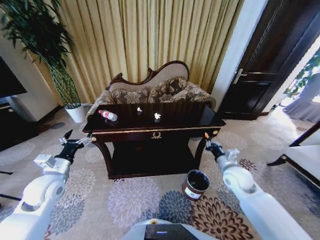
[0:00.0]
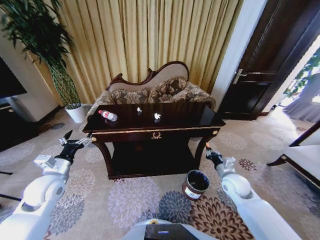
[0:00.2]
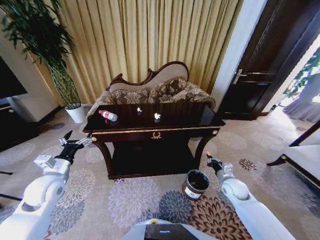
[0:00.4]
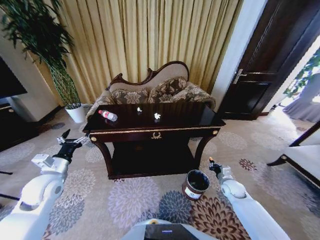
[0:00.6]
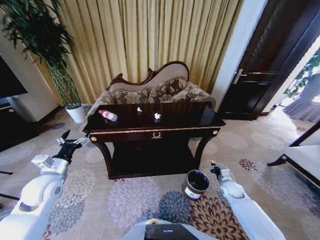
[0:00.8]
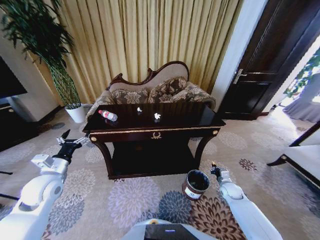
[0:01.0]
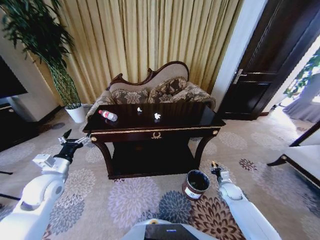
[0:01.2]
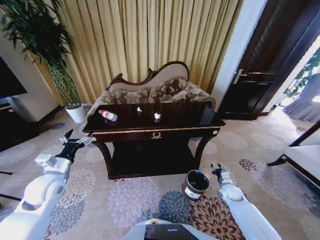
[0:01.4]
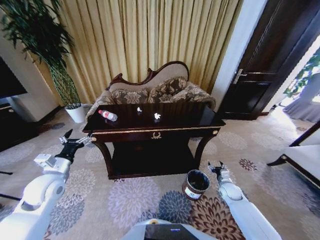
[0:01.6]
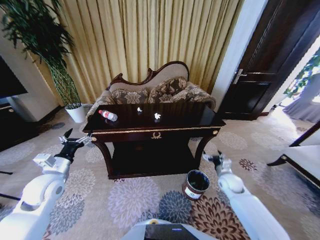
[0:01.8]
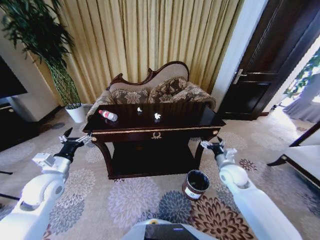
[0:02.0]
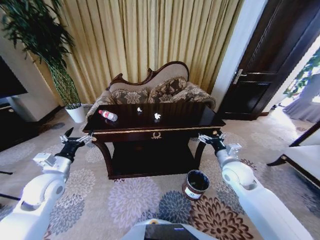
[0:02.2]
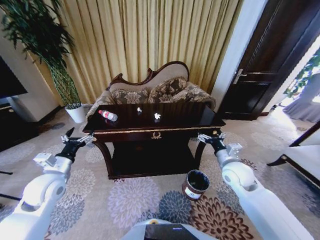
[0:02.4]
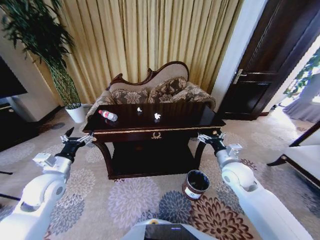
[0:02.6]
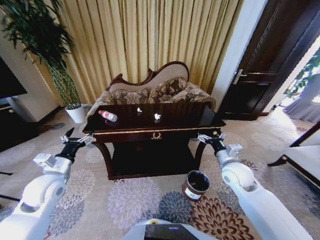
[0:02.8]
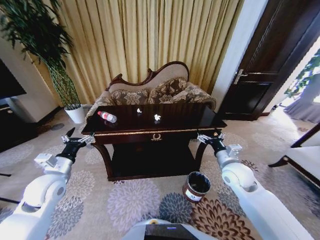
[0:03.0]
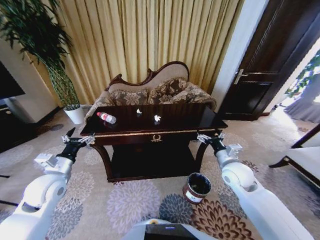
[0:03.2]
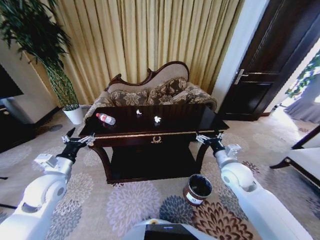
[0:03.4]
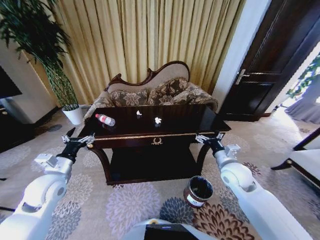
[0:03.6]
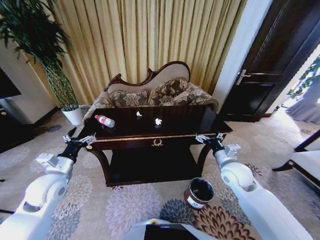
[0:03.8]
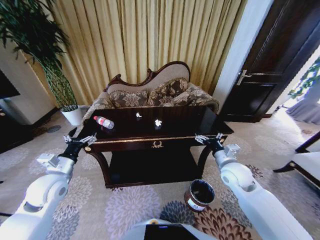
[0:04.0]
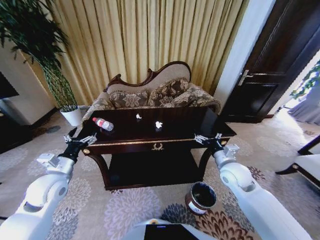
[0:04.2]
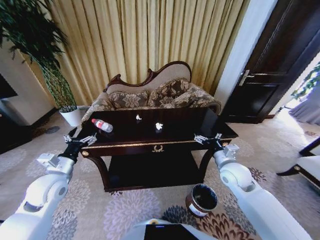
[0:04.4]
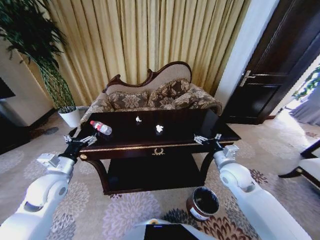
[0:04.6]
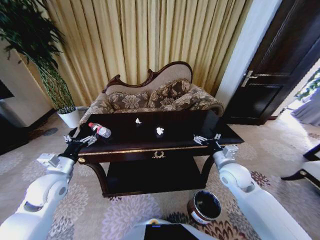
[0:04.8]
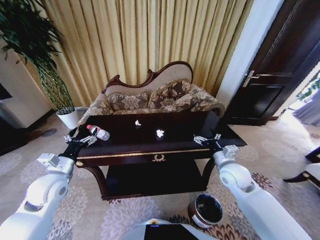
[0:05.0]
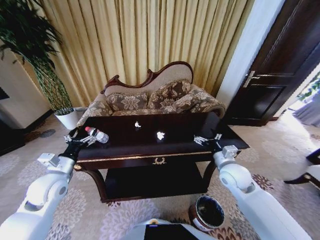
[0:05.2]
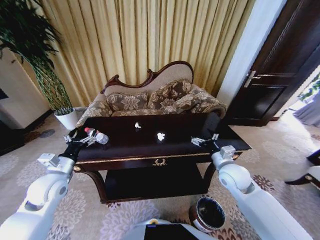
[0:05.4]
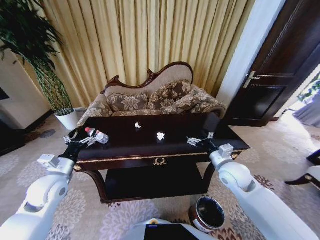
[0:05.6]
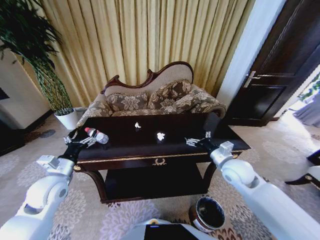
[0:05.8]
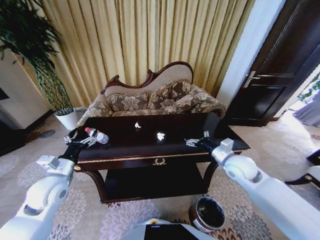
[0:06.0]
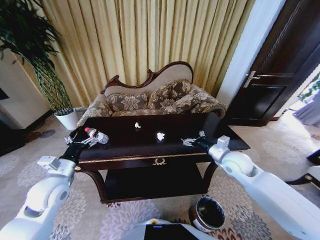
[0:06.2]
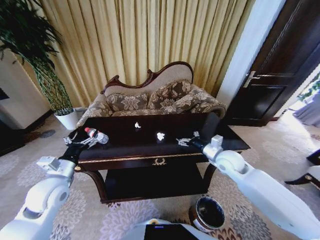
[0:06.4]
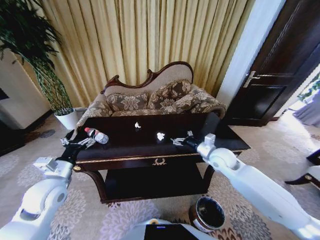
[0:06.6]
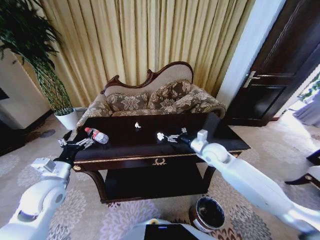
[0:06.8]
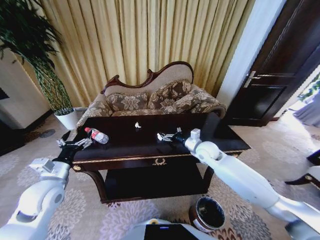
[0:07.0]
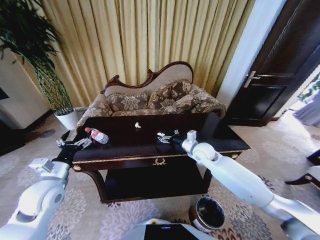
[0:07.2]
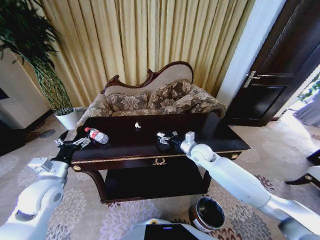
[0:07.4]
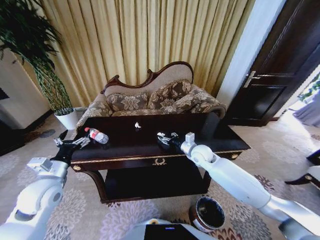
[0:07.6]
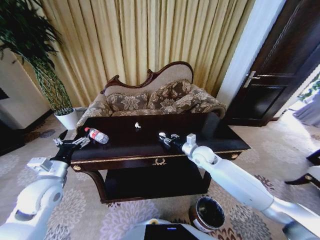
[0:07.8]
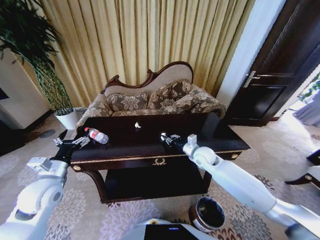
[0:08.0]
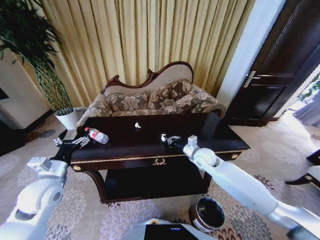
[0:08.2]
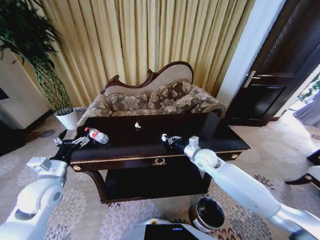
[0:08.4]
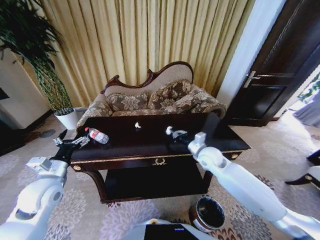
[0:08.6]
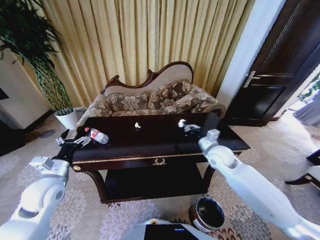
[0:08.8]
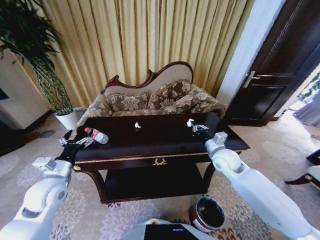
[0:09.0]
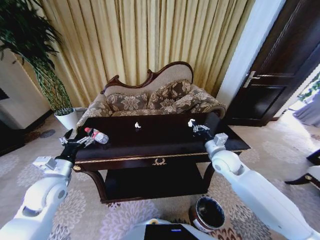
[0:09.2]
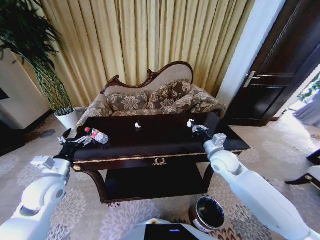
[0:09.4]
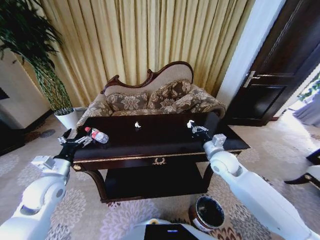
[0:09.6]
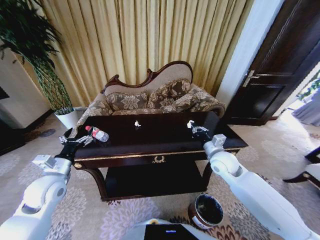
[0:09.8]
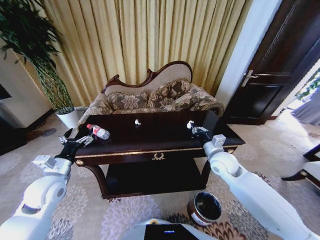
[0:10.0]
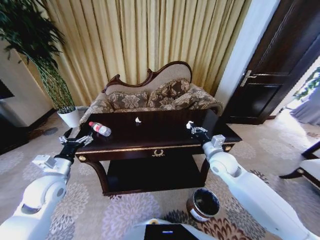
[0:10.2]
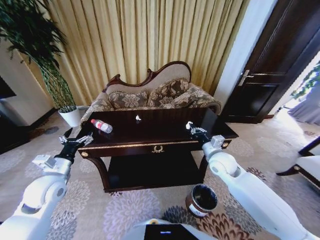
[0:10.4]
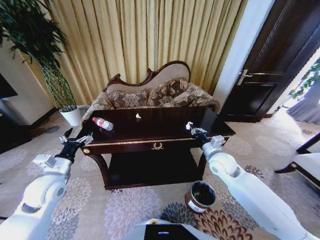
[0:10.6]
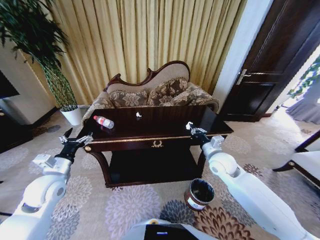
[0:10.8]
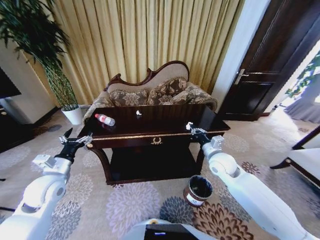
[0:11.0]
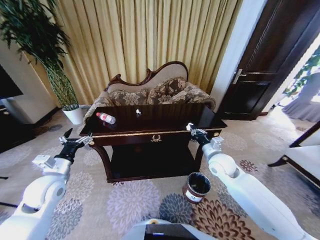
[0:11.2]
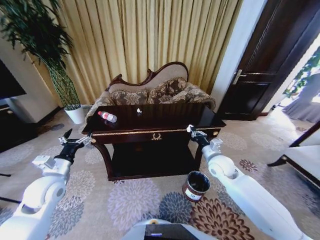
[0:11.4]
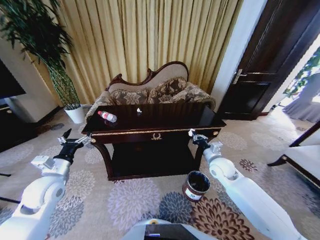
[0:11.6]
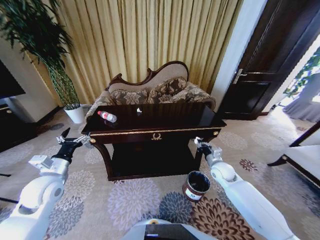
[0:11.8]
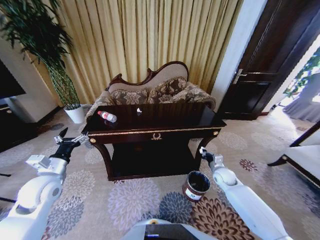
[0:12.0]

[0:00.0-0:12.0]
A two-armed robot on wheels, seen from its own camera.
Task of the whole recording: Move to the front of the table and place the trash on the table into the trash bin.
0:00.0 to 0:01.6: The right gripper is displaced downward by about 20 cm, and opens its fingers.
0:01.6 to 0:03.0: The right gripper shifts some 25 cm upward and to the left.
0:06.0 to 0:07.6: The right gripper heads to the left, forward and downward, covering some 15 cm.
0:07.6 to 0:09.0: The right gripper heads to the right and backward, covering about 10 cm, and closes.
0:10.4 to 0:12.0: The right gripper shifts approximately 20 cm downward and to the right.

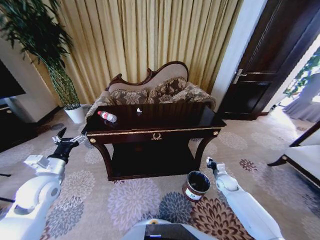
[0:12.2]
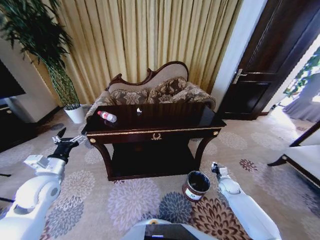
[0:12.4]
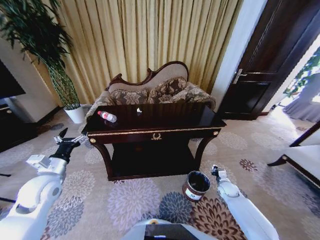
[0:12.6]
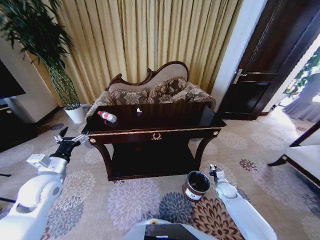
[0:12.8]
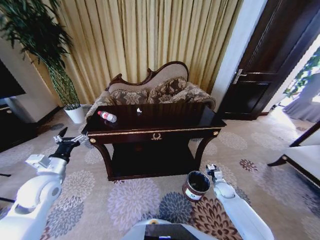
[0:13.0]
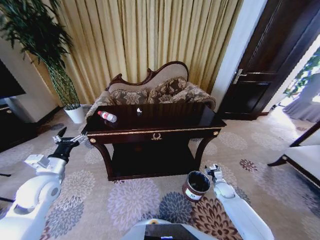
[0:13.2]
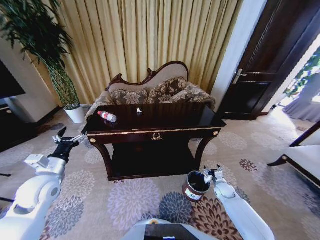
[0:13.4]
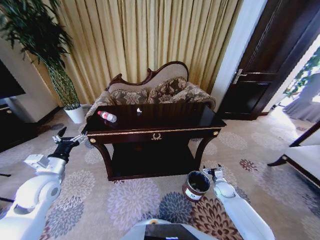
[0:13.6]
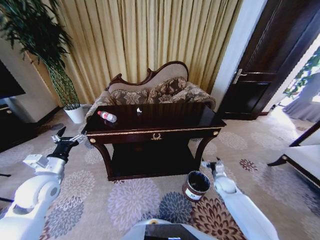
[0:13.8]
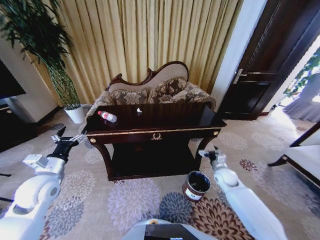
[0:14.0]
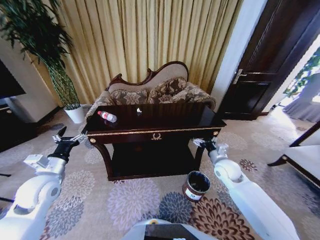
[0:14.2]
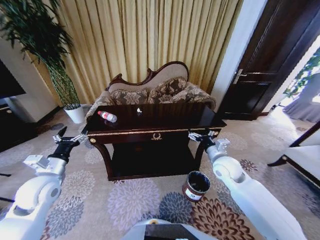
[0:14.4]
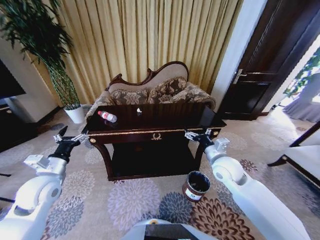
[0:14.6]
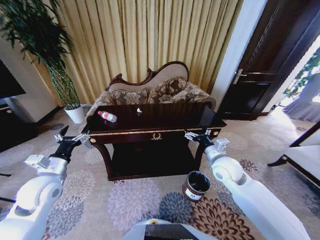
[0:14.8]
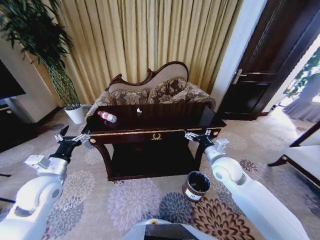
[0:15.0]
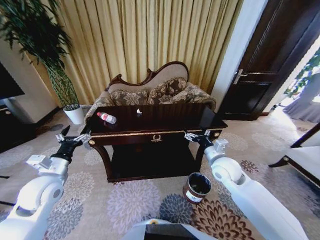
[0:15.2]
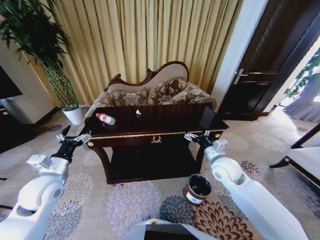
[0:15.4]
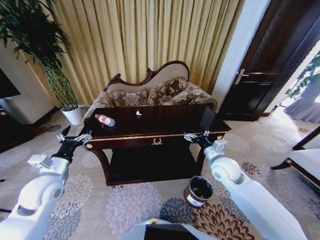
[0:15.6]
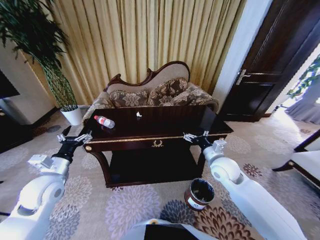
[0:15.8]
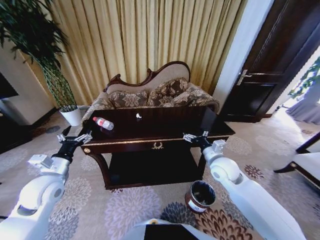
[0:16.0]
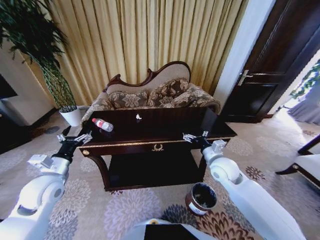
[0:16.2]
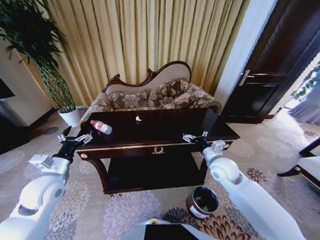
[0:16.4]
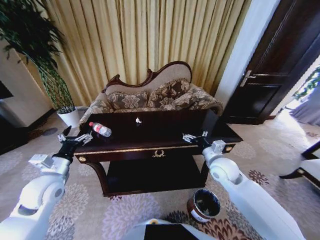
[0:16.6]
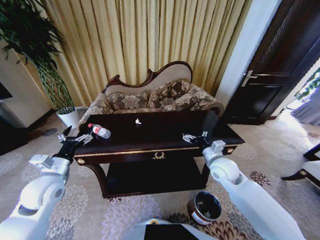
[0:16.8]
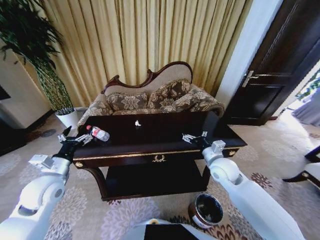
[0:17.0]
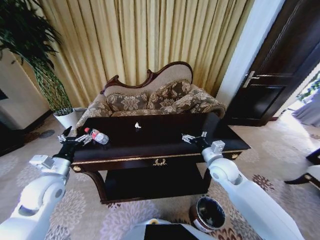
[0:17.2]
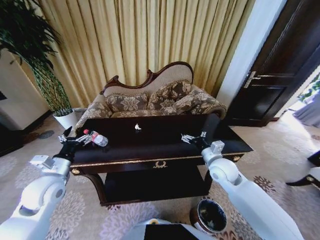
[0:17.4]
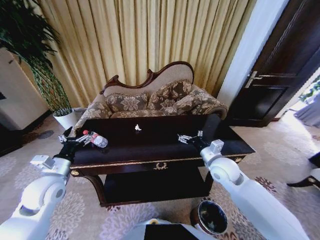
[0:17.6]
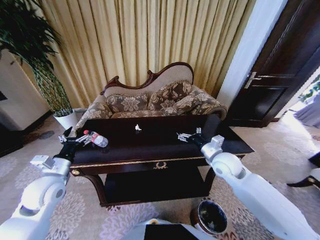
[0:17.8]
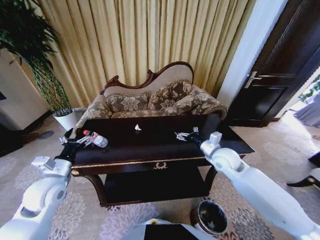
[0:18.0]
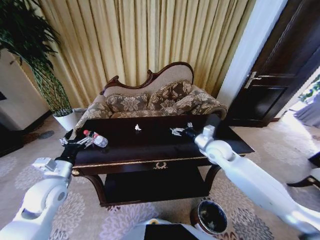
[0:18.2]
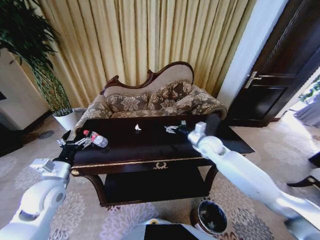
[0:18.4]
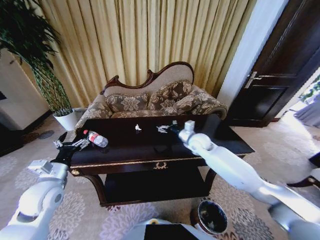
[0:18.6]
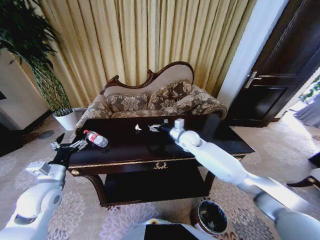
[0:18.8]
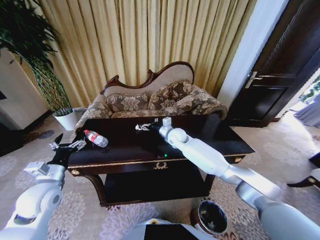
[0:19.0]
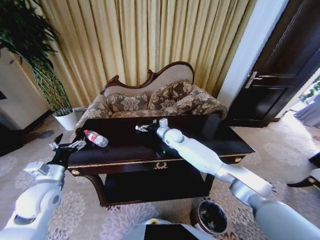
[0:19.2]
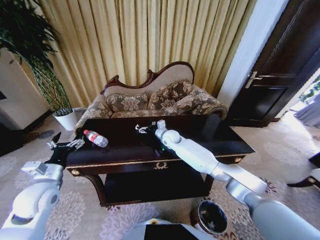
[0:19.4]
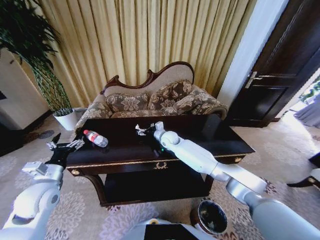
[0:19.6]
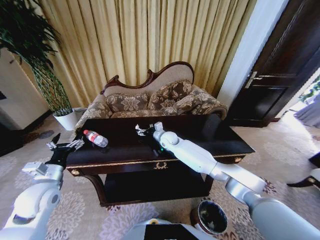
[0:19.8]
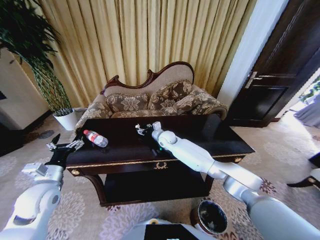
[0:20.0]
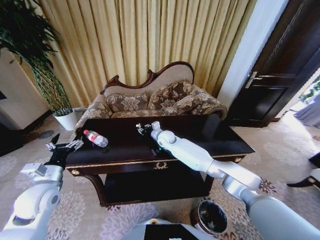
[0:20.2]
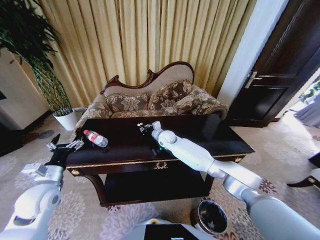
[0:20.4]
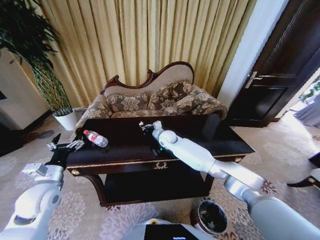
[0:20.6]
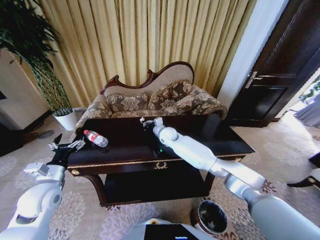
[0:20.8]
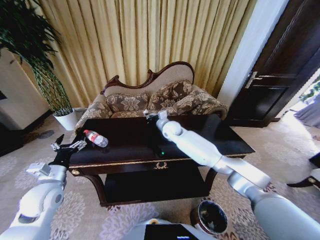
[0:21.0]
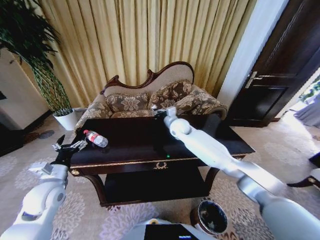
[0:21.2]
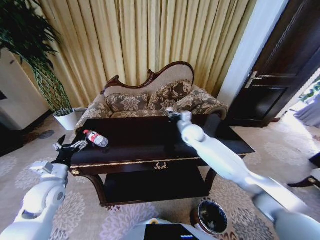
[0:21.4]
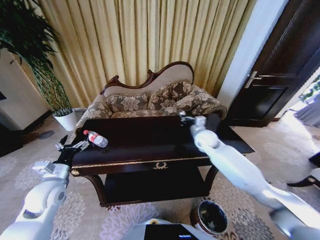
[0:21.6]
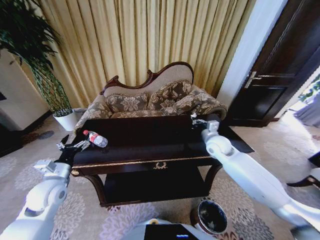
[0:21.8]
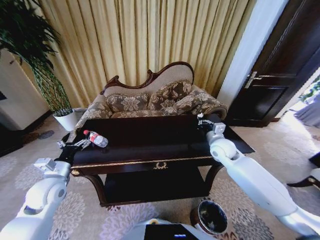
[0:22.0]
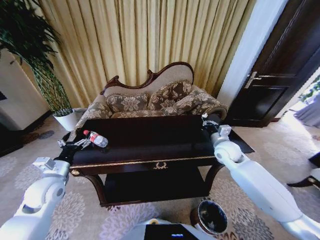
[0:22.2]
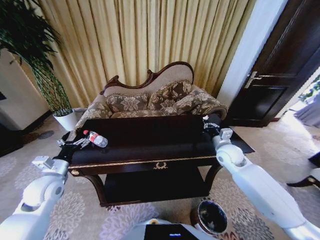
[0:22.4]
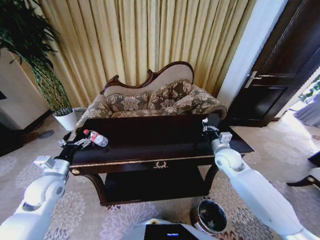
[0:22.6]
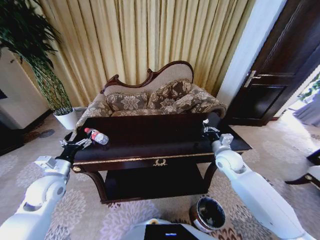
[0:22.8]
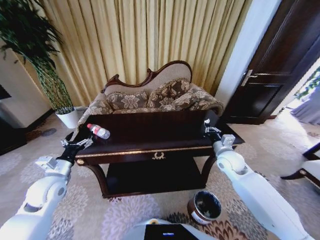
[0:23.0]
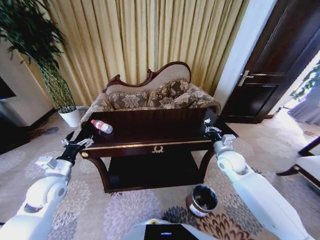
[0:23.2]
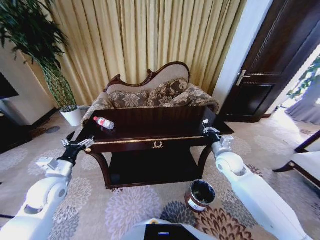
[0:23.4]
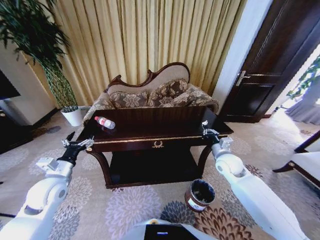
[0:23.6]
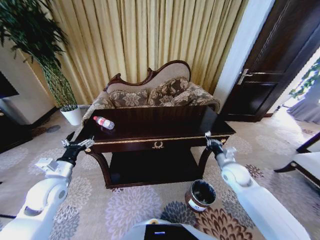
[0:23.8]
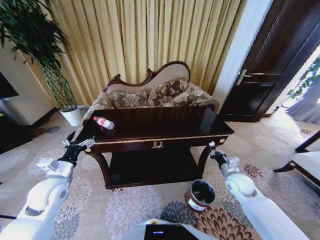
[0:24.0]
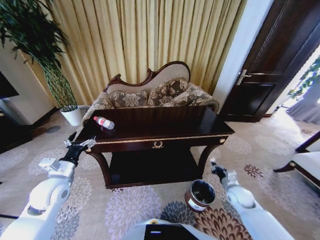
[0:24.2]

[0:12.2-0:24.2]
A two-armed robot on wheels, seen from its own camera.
Task of the whole recording: Move to the front of the table and place the trash on the table into the trash bin.
0:12.2 to 0:13.8: The right gripper opens up.
0:13.8 to 0:15.2: The right gripper travels upward and to the left by approximately 25 cm.
0:16.6 to 0:18.2: The right gripper is displaced forward by about 5 cm.
0:18.2 to 0:19.8: The right gripper shifts about 25 cm to the left and forward.
0:19.8 to 0:21.2: The right gripper heads upward and to the right, covering some 10 cm, and closes.
0:21.2 to 0:22.6: The right gripper shifts about 25 cm to the right and backward.
0:22.6 to 0:24.2: The right gripper shifts approximately 20 cm downward, backward and to the right.
